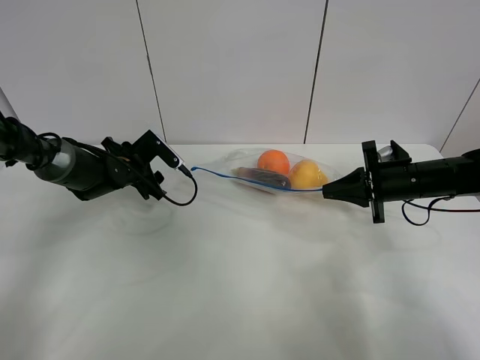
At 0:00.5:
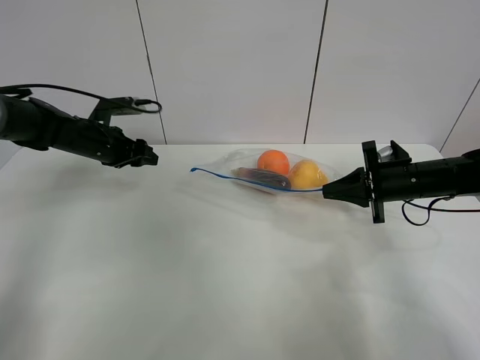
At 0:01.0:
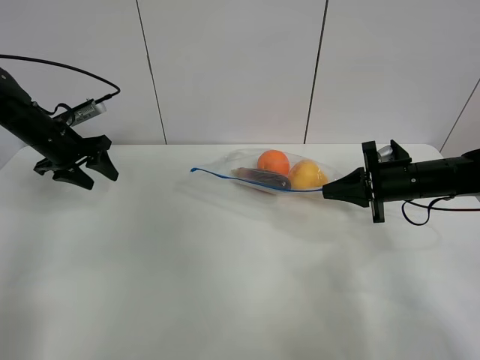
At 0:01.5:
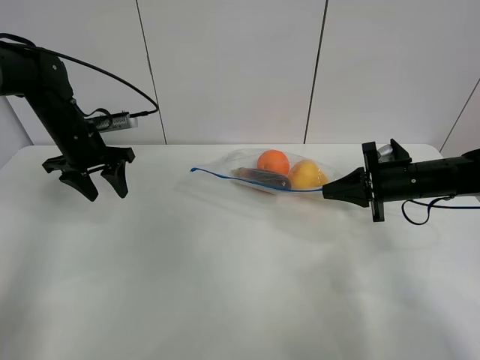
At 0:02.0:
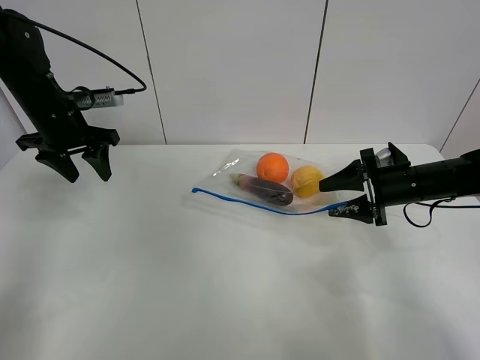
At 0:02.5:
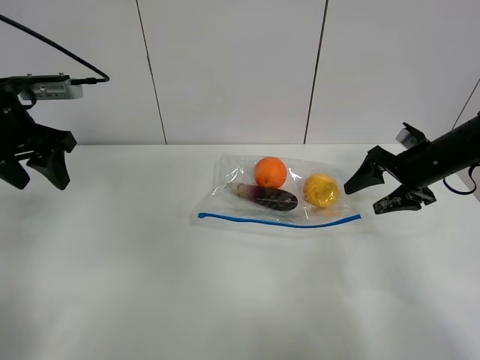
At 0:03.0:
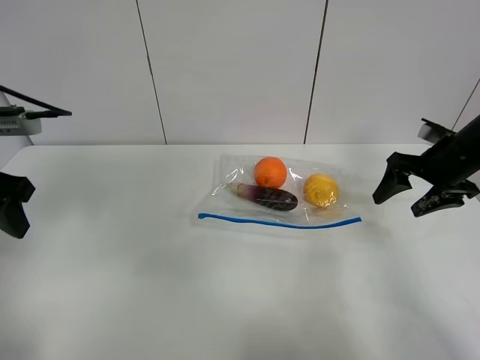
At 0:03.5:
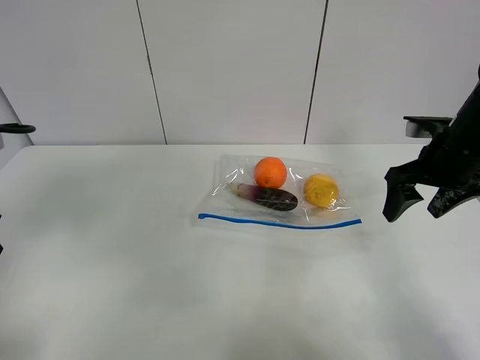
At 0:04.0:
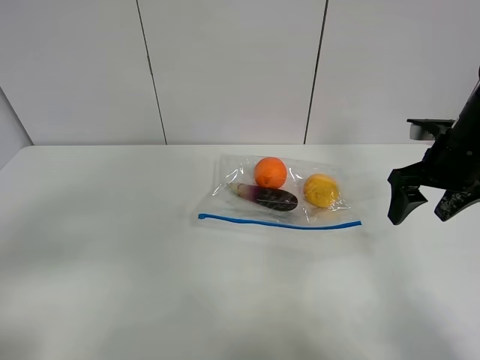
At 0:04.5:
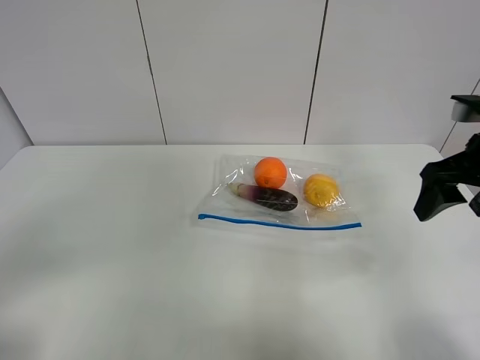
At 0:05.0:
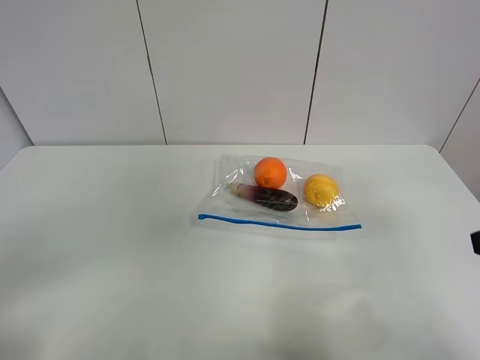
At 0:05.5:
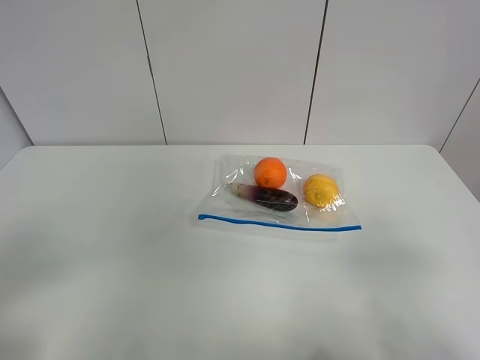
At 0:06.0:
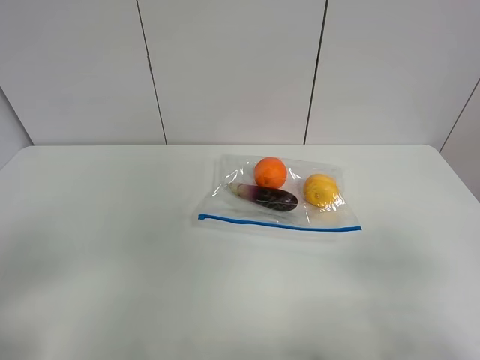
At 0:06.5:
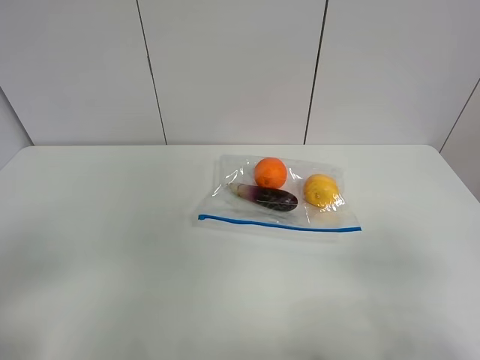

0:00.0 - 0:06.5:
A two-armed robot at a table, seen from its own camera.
0:00.0 - 0:02.0: The right gripper opens its fingers. The left gripper travels upward by roughly 15 cm.
0:02.0 - 0:04.5: The right gripper travels upward and backward by roughly 20 cm; the left gripper moves backward, roughly 40 cm.
0:04.5 - 0:06.5: The right gripper is displaced backward by about 25 cm.

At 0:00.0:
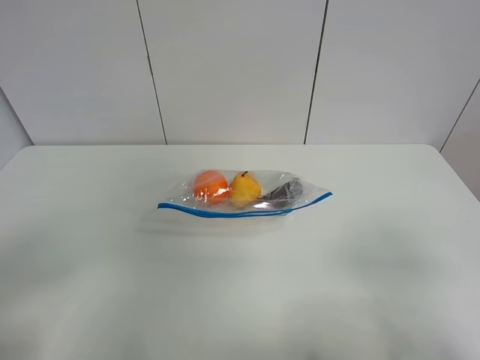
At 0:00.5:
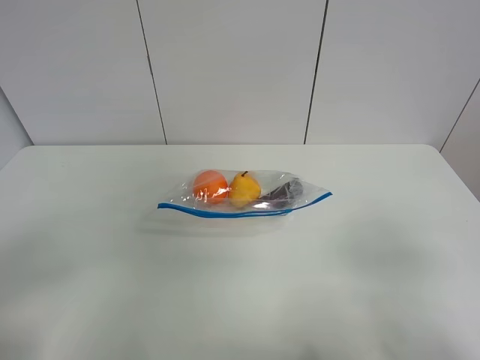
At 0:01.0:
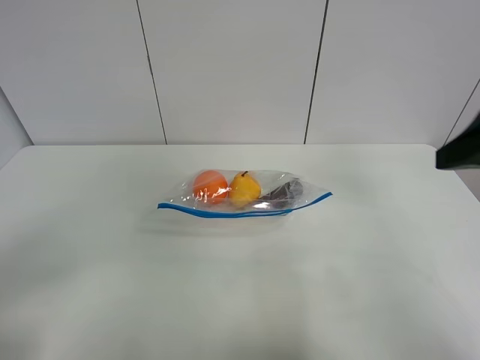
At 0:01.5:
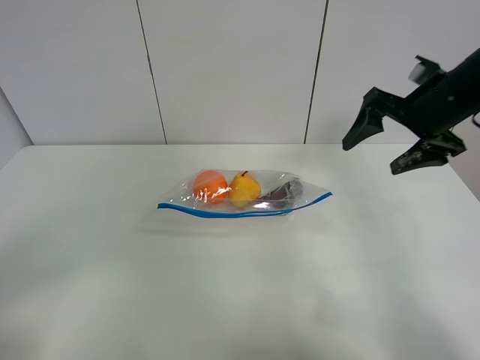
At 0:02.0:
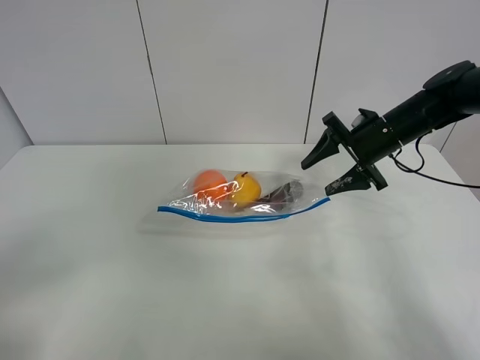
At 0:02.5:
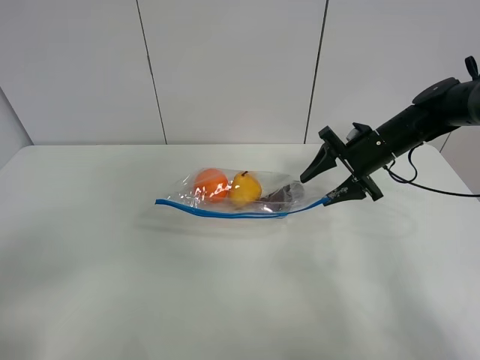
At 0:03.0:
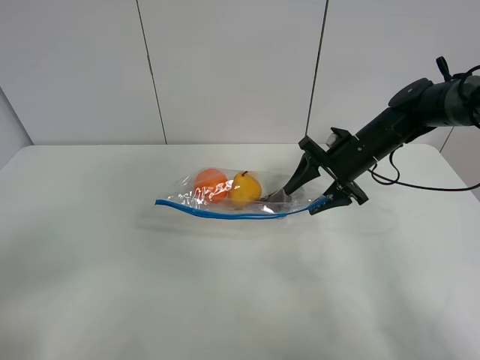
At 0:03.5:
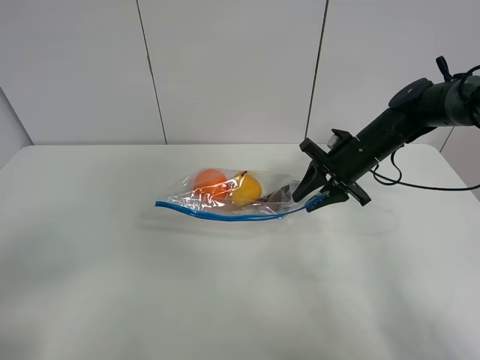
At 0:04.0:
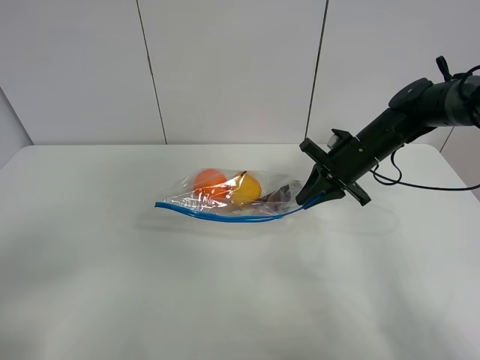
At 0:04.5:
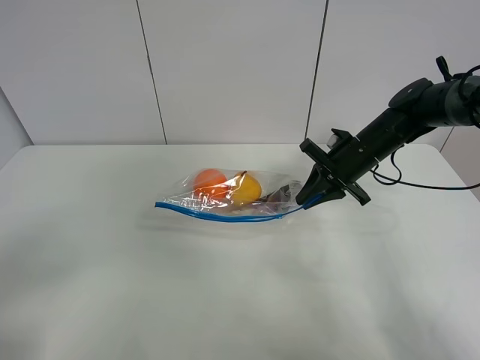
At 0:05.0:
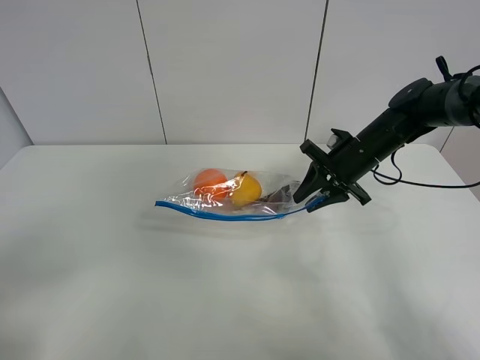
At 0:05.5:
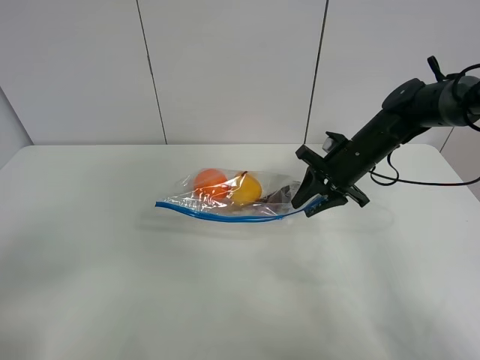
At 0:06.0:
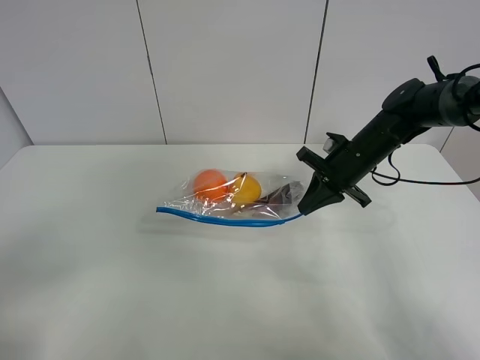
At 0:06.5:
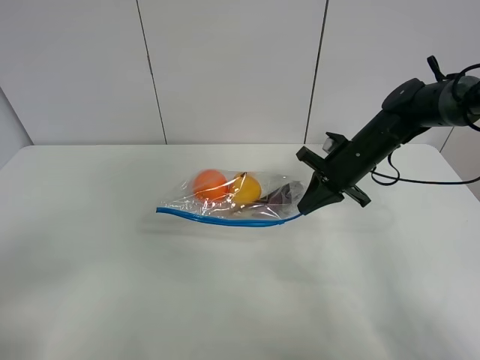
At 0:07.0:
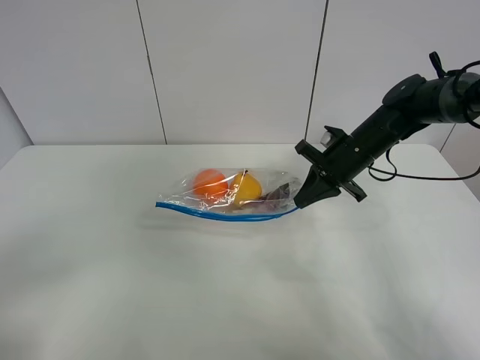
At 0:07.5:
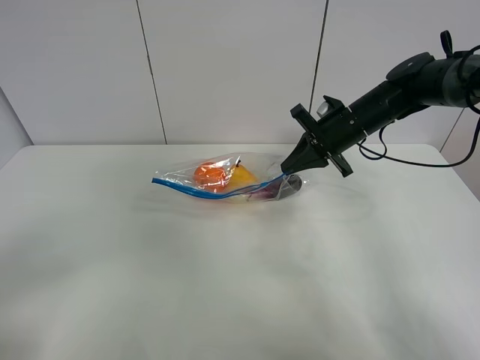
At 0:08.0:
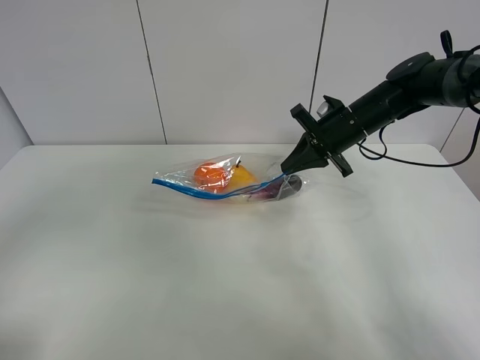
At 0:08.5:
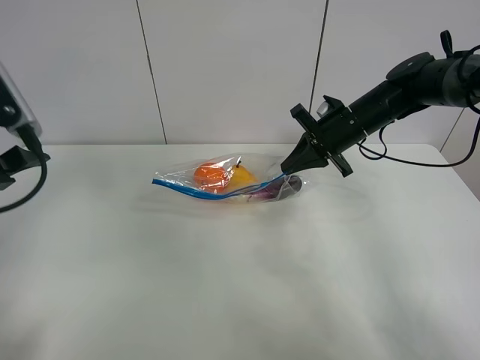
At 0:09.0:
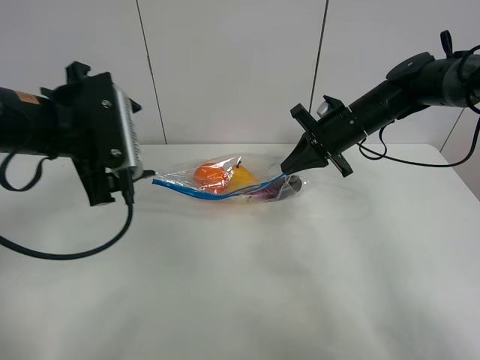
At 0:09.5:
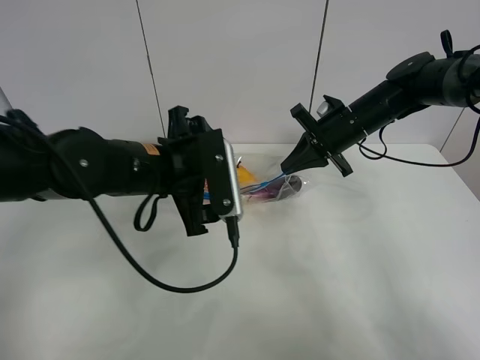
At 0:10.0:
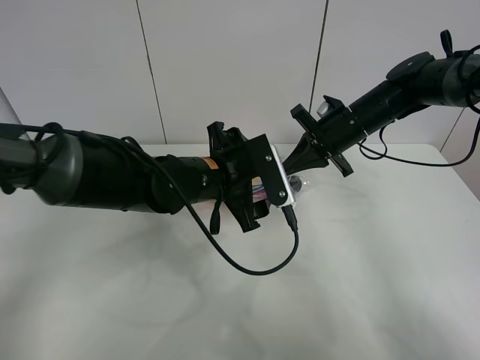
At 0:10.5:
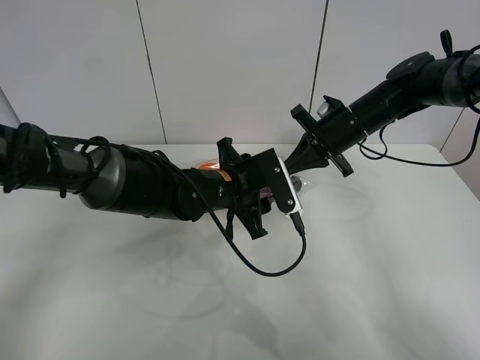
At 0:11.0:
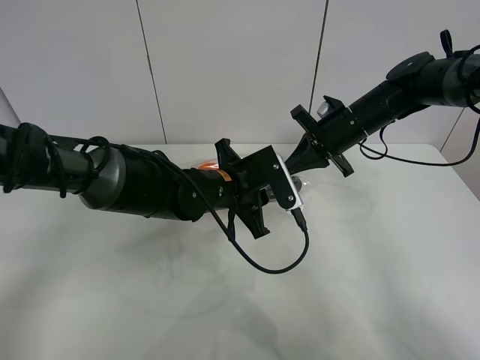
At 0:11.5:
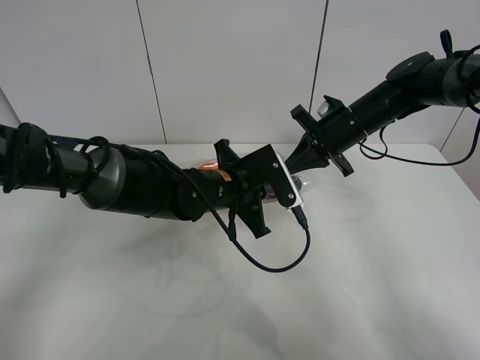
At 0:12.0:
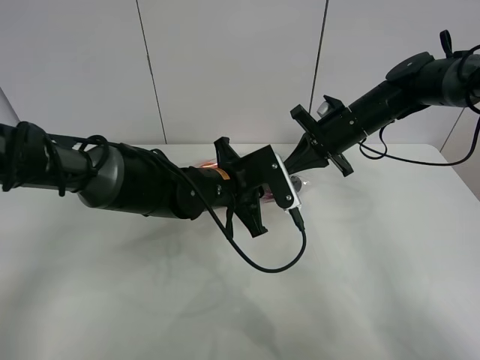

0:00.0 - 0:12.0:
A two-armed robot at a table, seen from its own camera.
Step, 0:00.0 - 0:06.0: Grasp the fruit bag with right gripper.
Step, 0:06.5 - 0:07.5: Lift the fruit bag with your right gripper.
0:00.0 - 0:02.0: The right gripper travels forward by roughly 40 cm.
0:02.0 - 0:04.0: The right gripper closes.
0:04.0 - 0:06.0: There are only small adjustments of the grippers.
0:06.0 - 0:08.0: The right gripper moves about 5 cm. The left gripper shifts roughly 10 cm forward and upward.
0:08.0 - 0:10.0: The left gripper shifts roughly 40 cm to the right, forward and downward.
0:10.0 - 0:12.0: The left gripper closes up.

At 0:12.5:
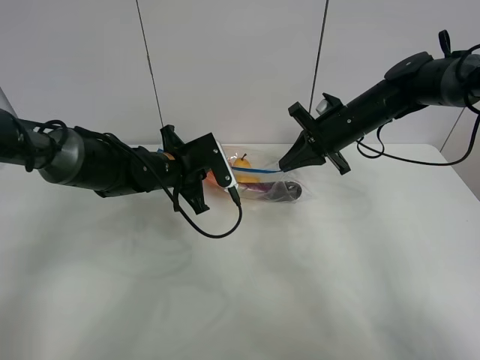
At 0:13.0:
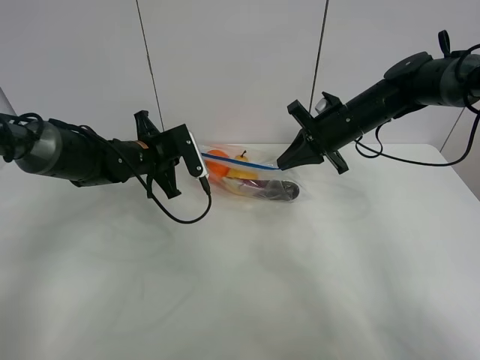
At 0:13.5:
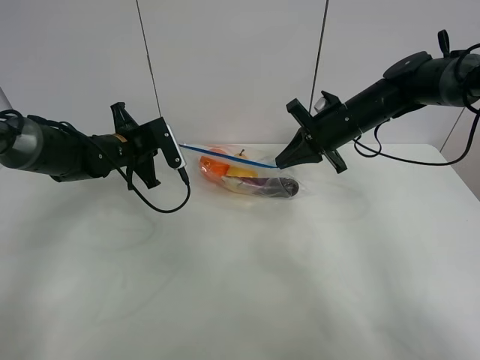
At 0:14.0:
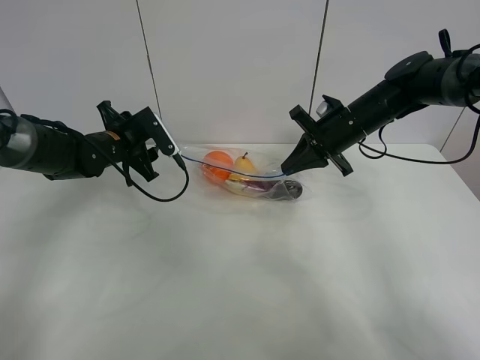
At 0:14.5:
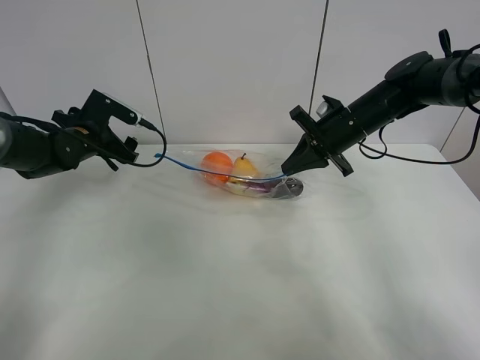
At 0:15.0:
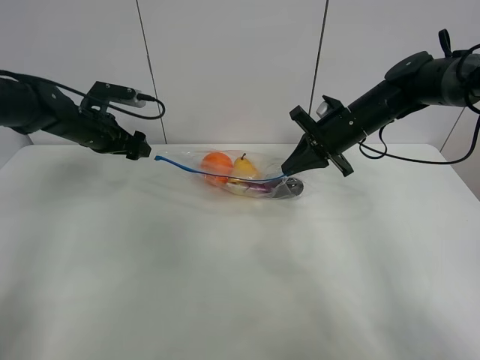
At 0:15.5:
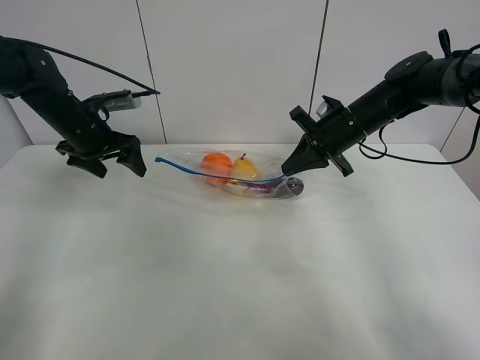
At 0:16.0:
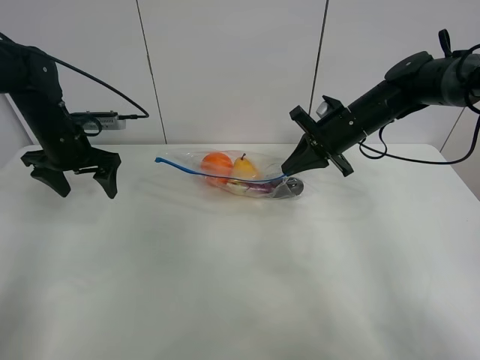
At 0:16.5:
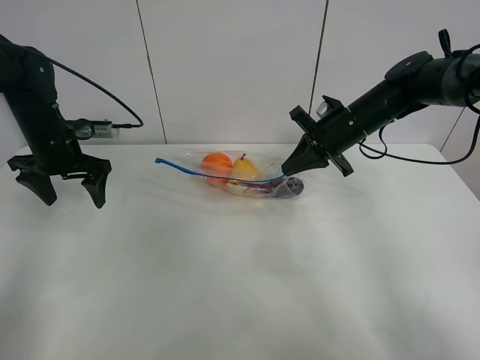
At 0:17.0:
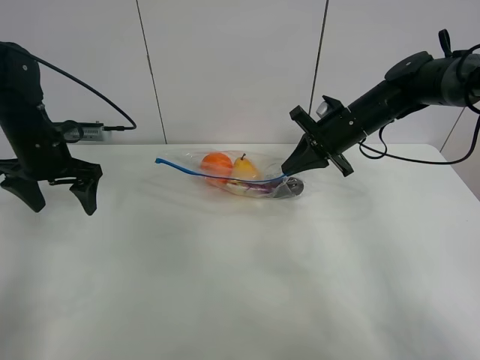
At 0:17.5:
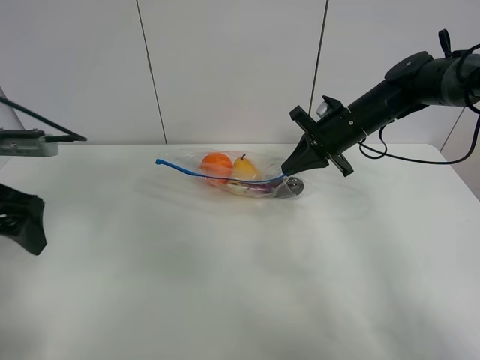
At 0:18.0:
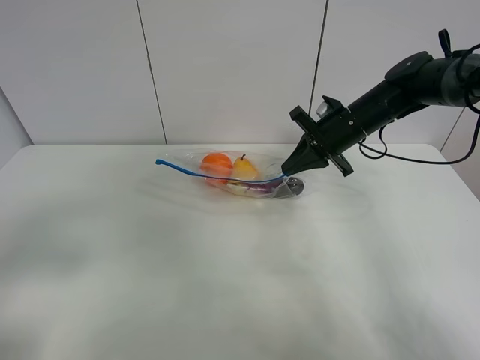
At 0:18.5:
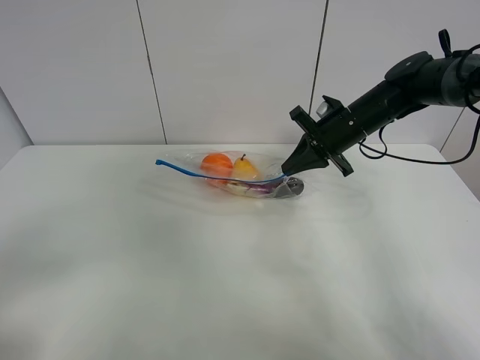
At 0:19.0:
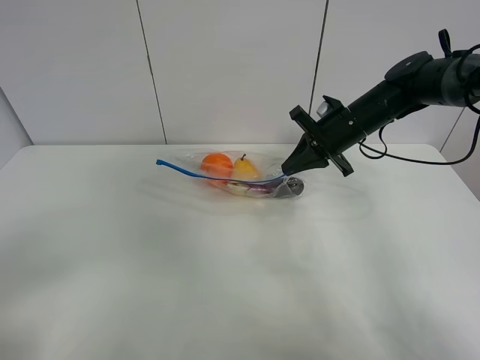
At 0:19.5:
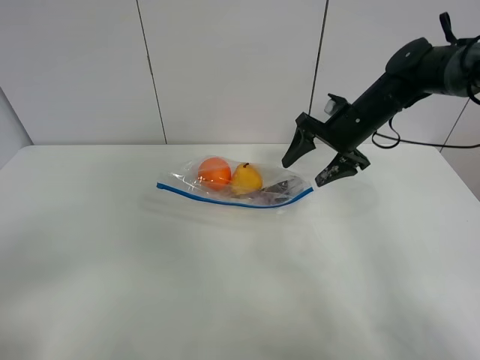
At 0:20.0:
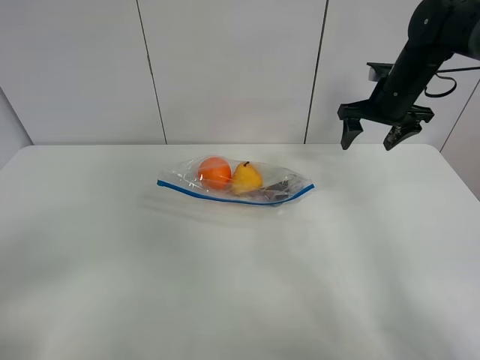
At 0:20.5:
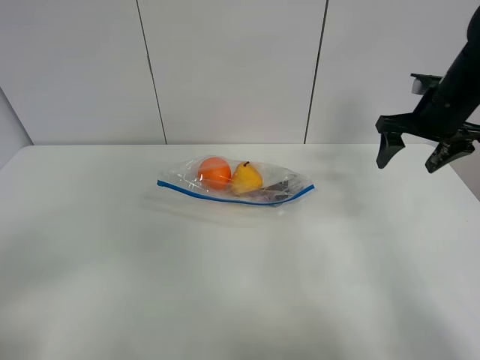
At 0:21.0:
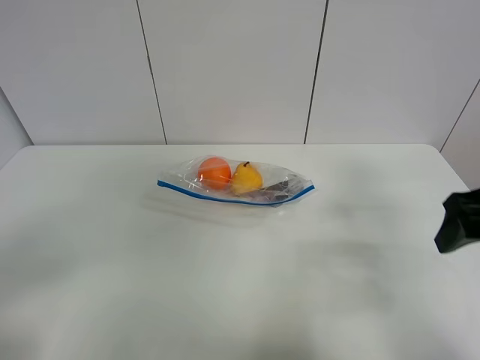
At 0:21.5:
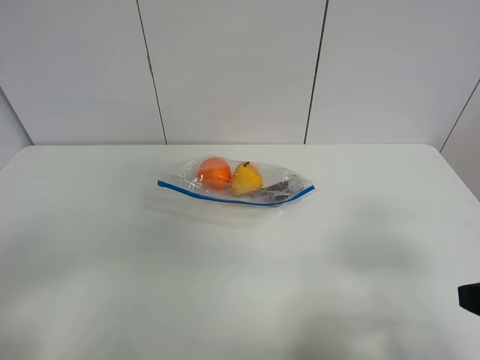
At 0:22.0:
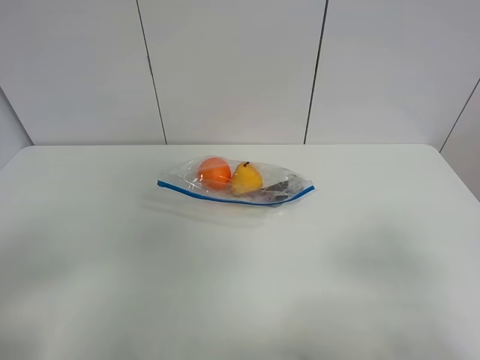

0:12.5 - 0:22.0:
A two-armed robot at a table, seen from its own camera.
0:12.5 - 0:14.5: The left gripper shifts approximately 15 cm to the left, and opens its fingers.
0:16.5 - 0:18.0: The left gripper is displaced backward by some 30 cm.
0:18.0 - 0:20.0: The left gripper is displaced backward by about 10 cm, while the right gripper heads to the right, covering about 10 cm, and opens its fingers.
0:20.0 - 0:22.0: The right gripper travels backward by approximately 40 cm.
